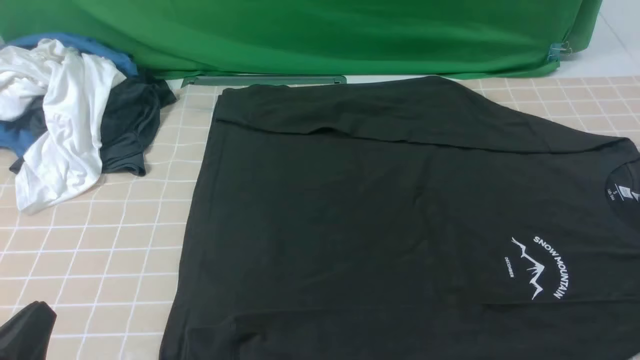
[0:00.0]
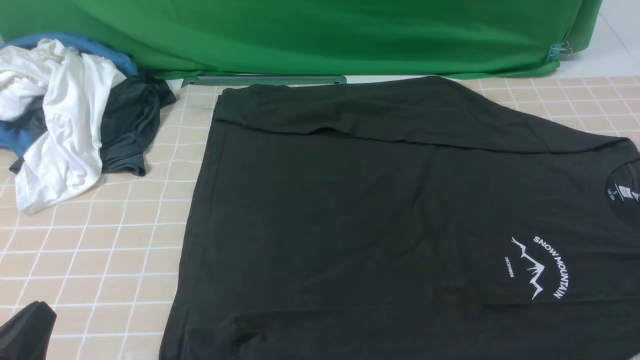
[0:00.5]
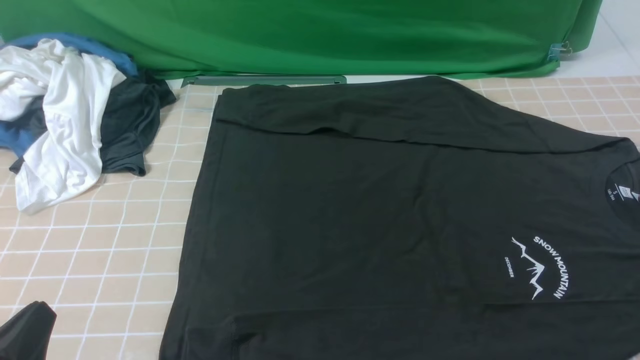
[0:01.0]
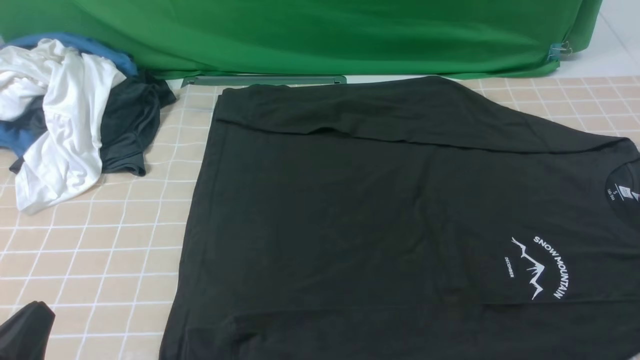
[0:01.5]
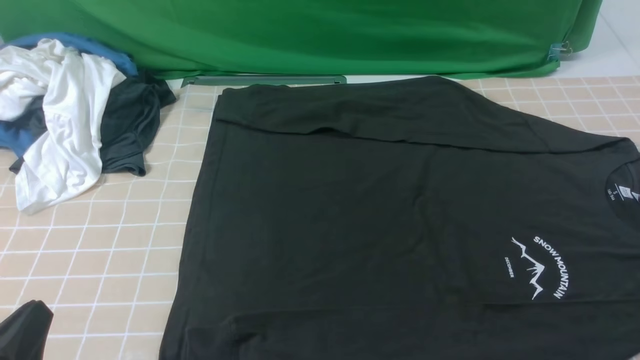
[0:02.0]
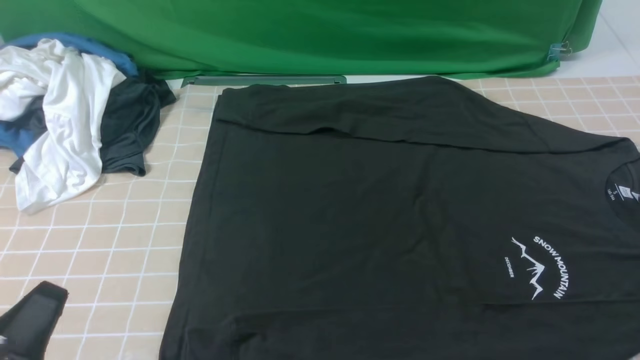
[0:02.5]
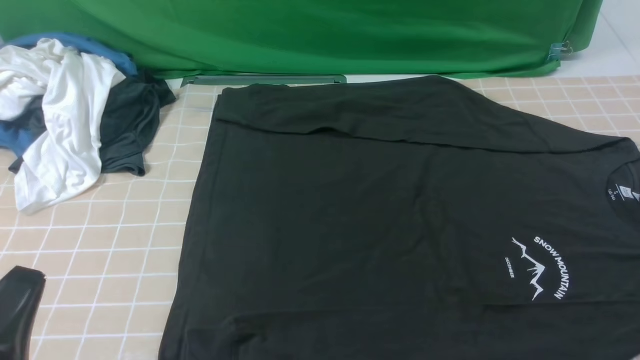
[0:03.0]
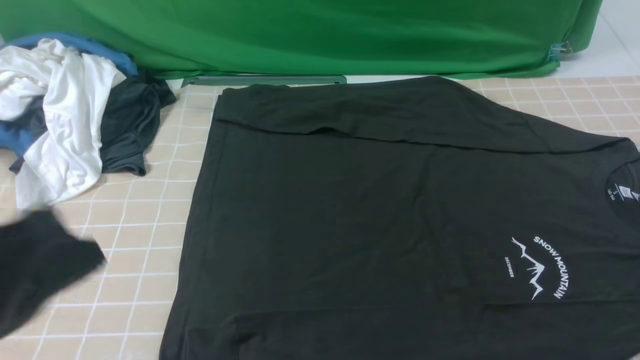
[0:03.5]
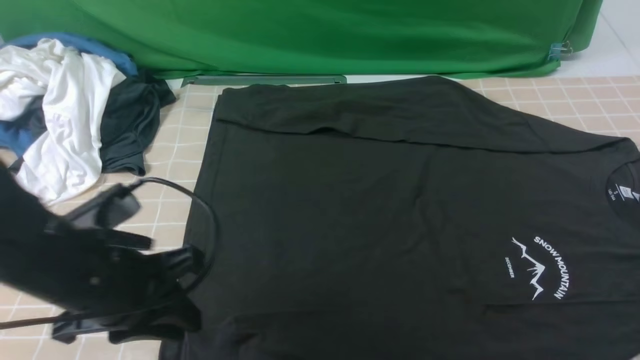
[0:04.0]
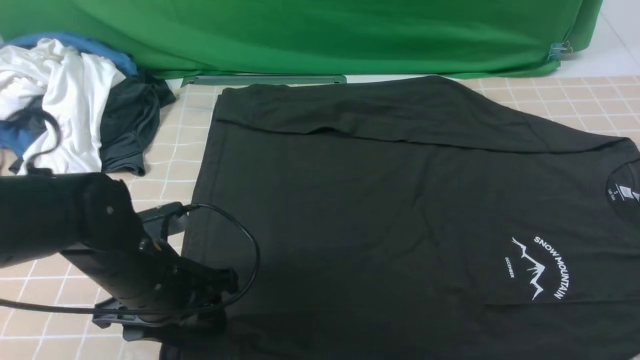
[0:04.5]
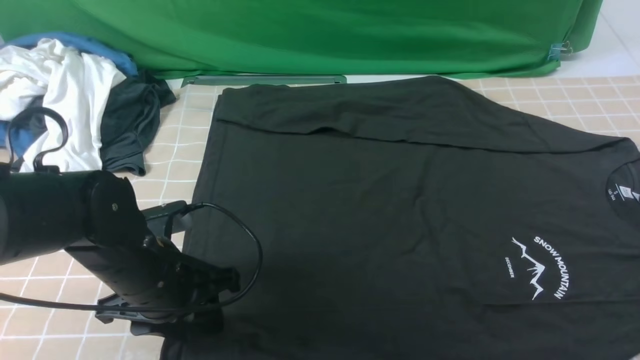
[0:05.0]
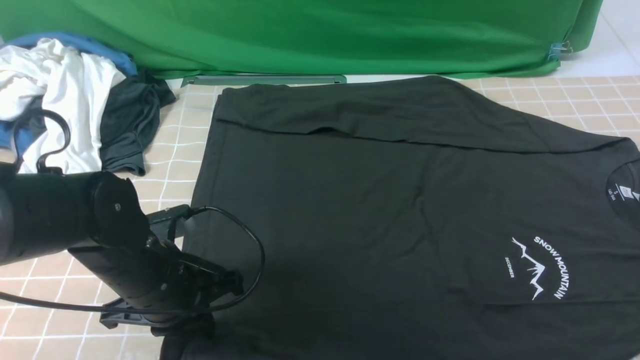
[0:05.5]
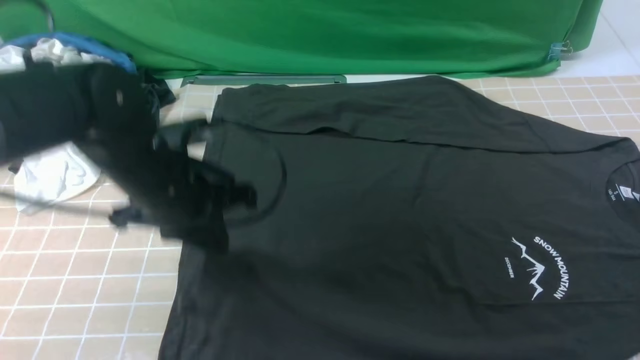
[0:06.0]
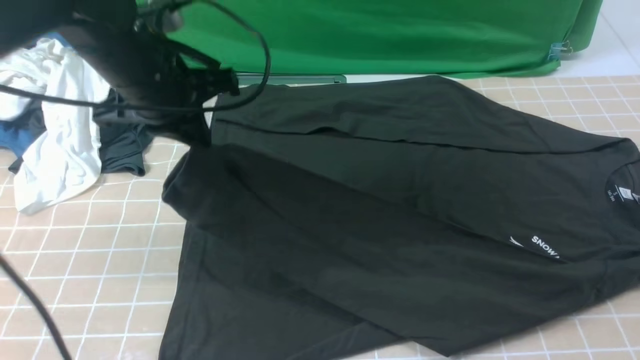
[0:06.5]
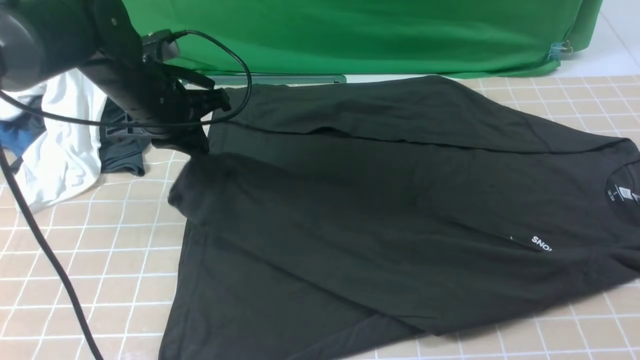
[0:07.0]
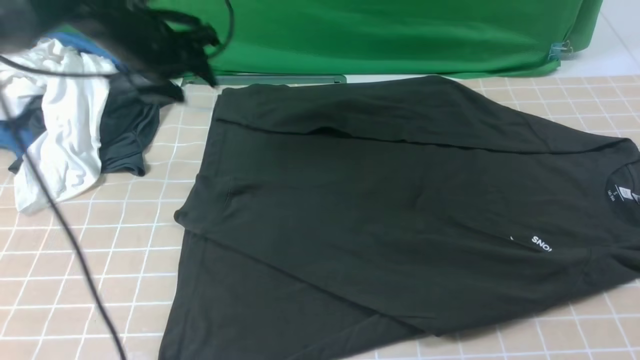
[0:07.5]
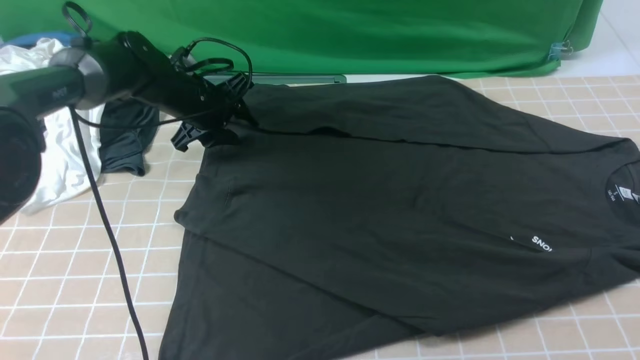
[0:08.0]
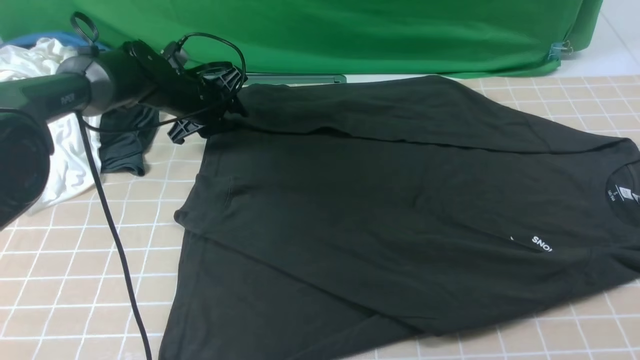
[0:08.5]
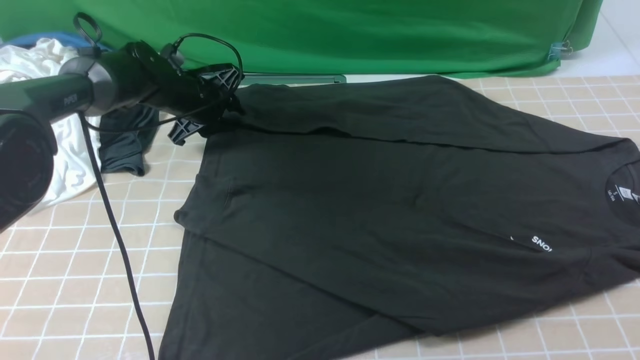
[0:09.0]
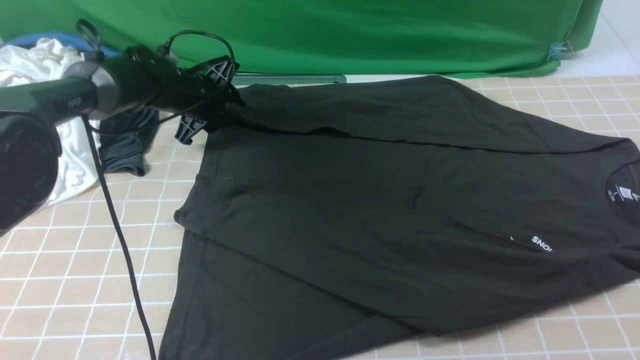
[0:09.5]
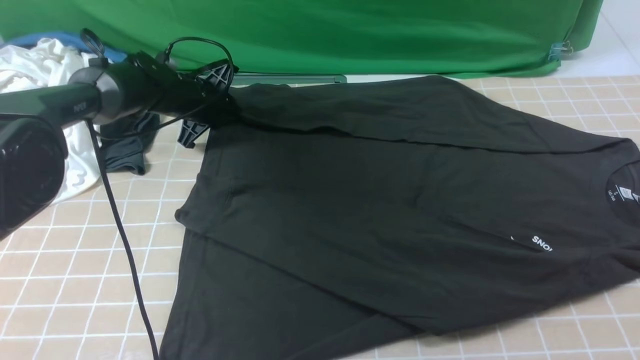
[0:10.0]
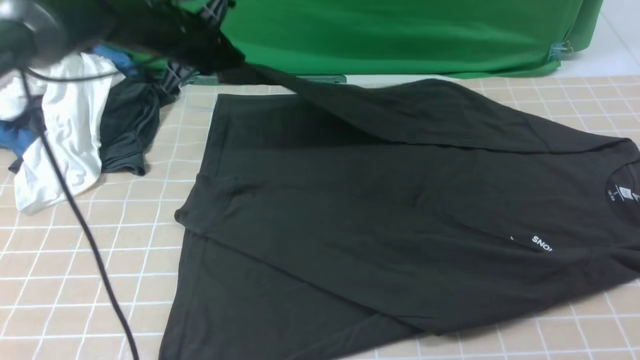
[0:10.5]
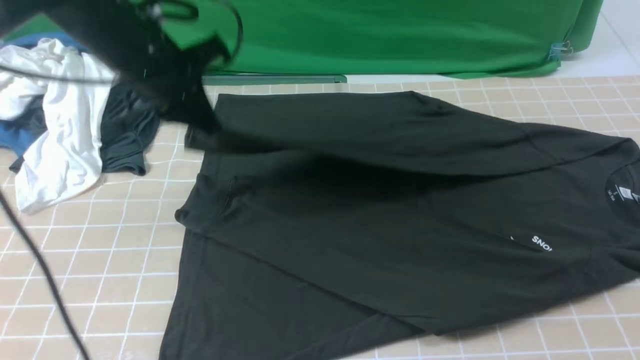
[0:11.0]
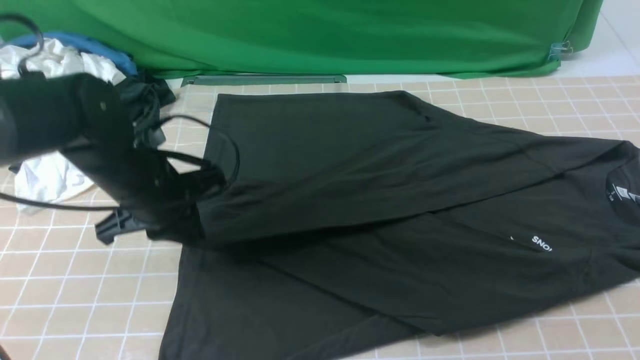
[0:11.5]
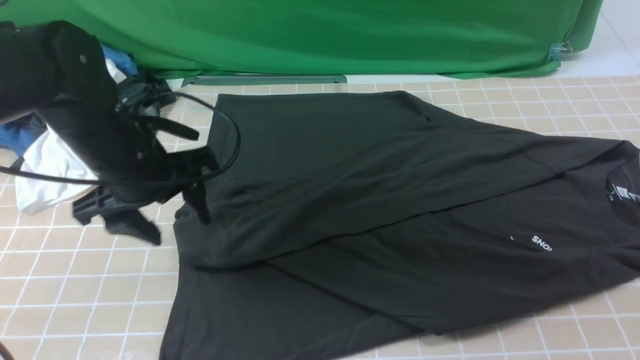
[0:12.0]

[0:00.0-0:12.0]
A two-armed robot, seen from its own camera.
Step, 0:00.0 to 0:05.5: use the left arm to clamp the cuff closest to it.
Step, 0:06.0 to 0:07.0: use the left arm to drag and place the cuff at the centered position on the left edge of the fabric.
Step, 0:07.5 to 0:10.0: use the left arm to clamp the cuff farthest from it.
Step, 0:10.5 to 0:11.5: use the left arm to drag and drop the cuff onto the cuff closest to the left arm.
0:00.0 to 0:02.0: Both grippers stay about where they are.
0:02.0 to 0:04.0: The left gripper heads forward and to the right, covering approximately 15 cm.
0:04.0 to 0:06.0: The left gripper goes roughly 10 cm forward, and opens and closes again.
0:06.0 to 0:08.0: The left gripper goes approximately 20 cm forward and downward, and opens its fingers.
0:08.0 to 0:10.0: The left gripper closes.
0:10.0 to 0:12.0: The left gripper moves backward, some 20 cm, and opens its fingers.

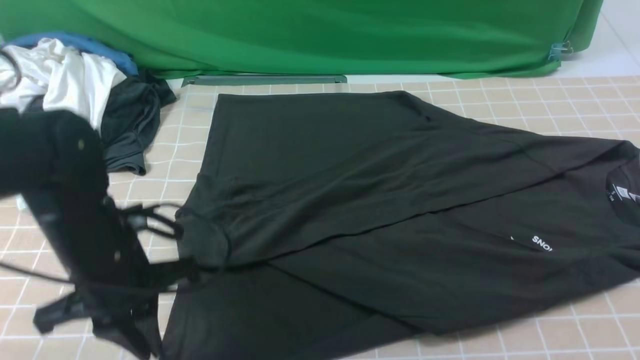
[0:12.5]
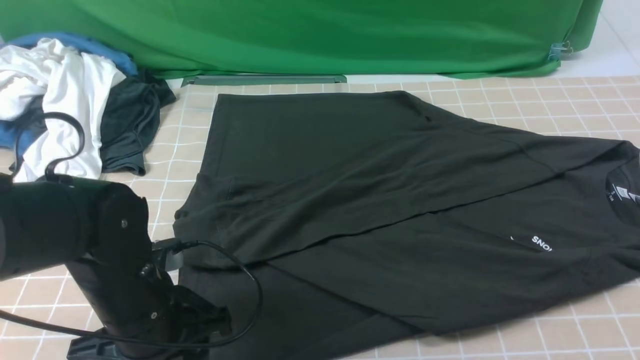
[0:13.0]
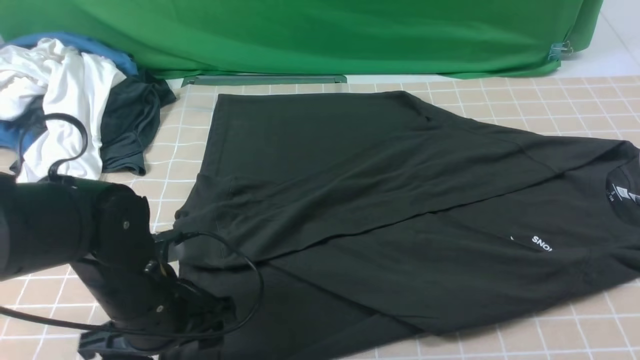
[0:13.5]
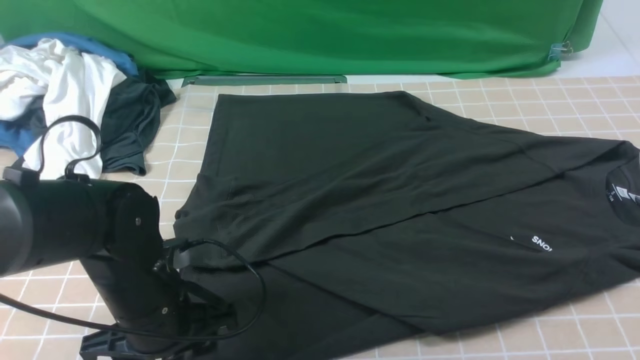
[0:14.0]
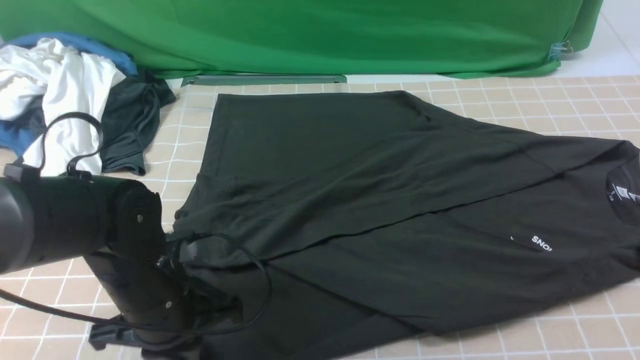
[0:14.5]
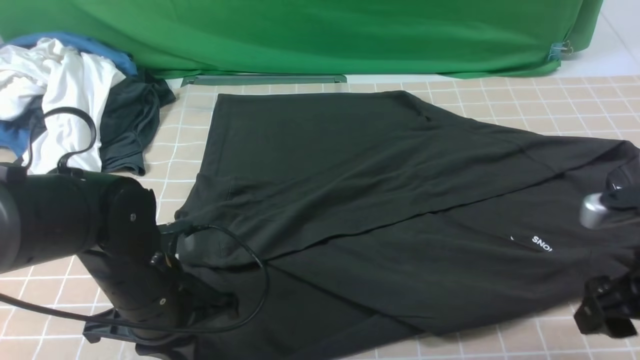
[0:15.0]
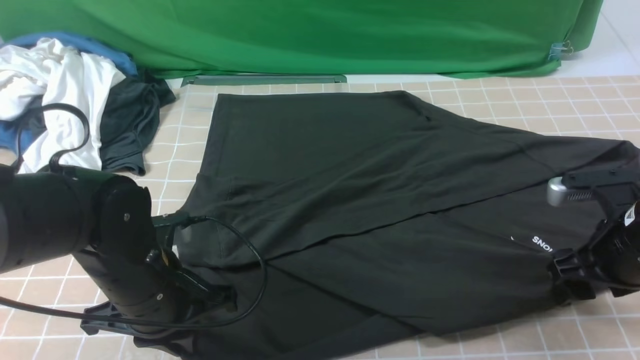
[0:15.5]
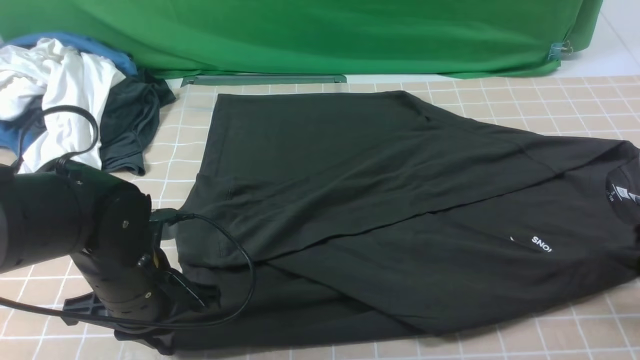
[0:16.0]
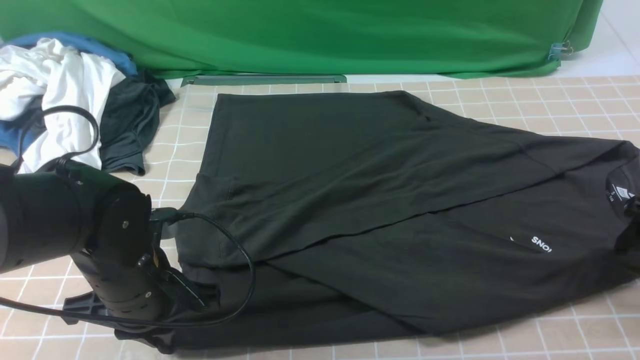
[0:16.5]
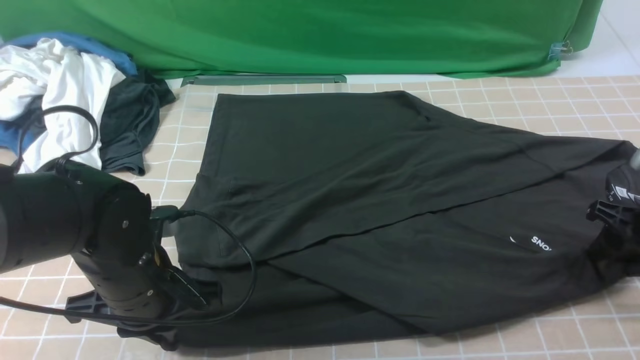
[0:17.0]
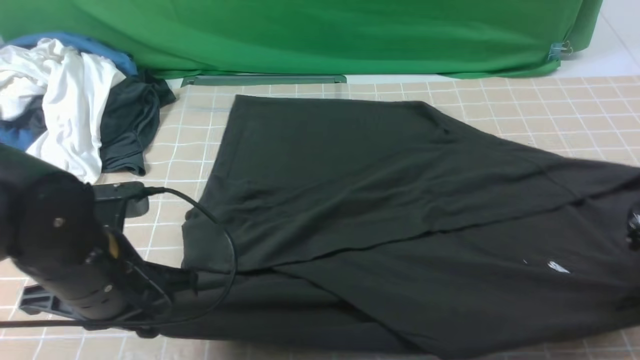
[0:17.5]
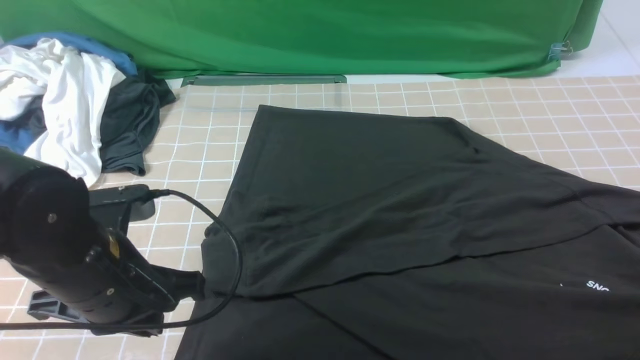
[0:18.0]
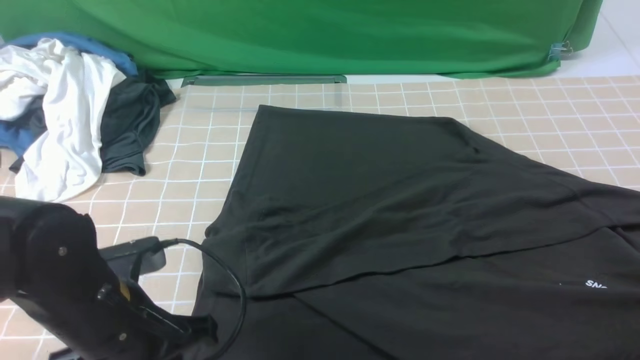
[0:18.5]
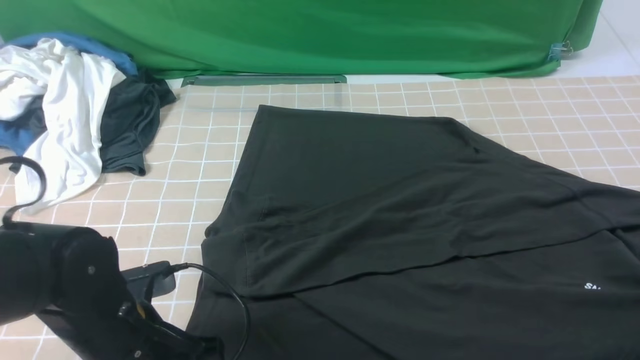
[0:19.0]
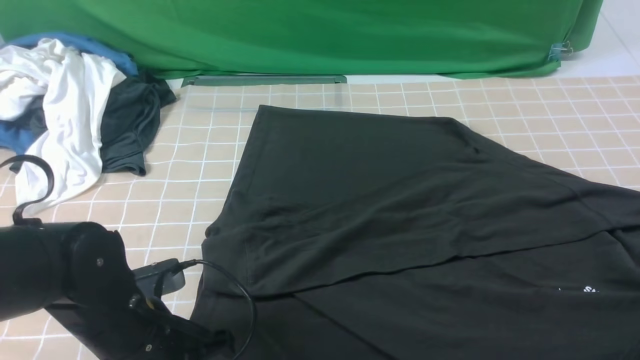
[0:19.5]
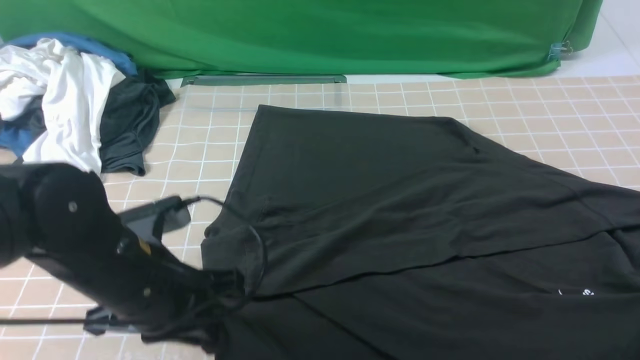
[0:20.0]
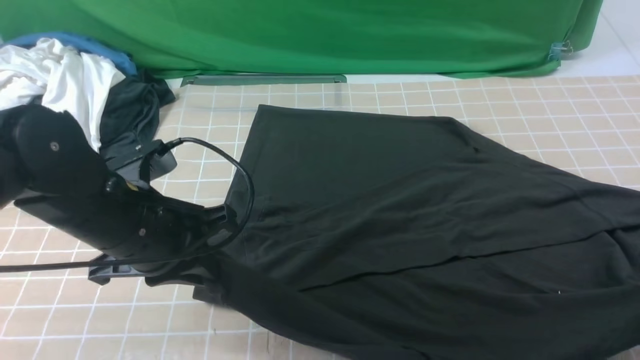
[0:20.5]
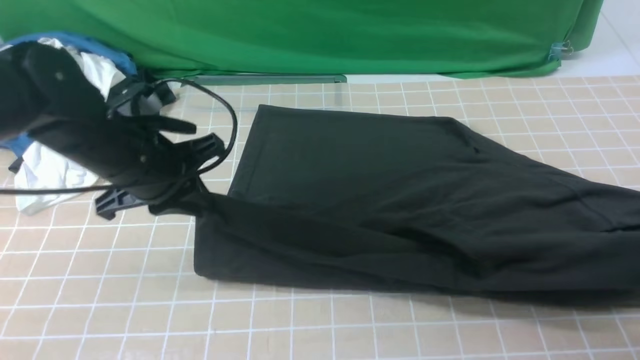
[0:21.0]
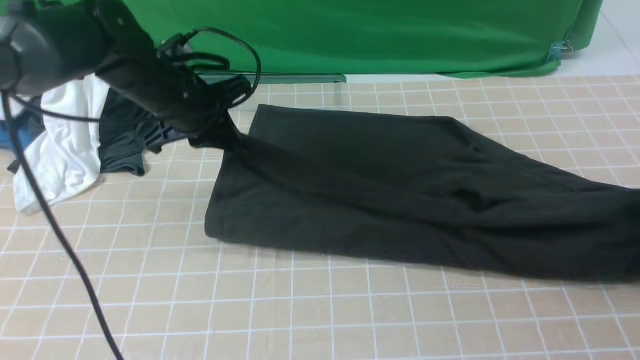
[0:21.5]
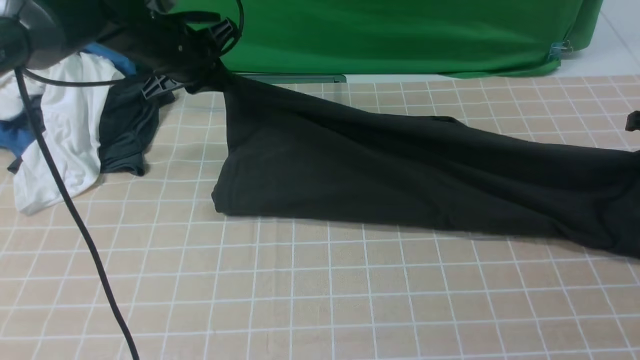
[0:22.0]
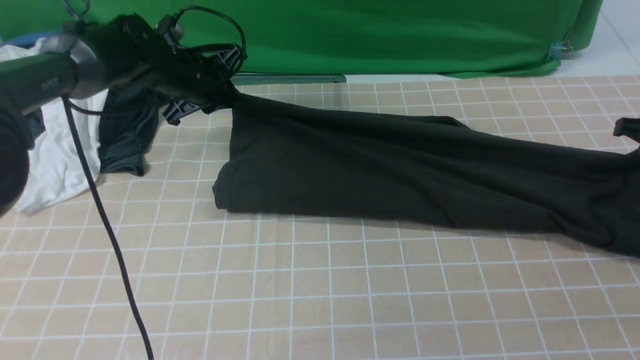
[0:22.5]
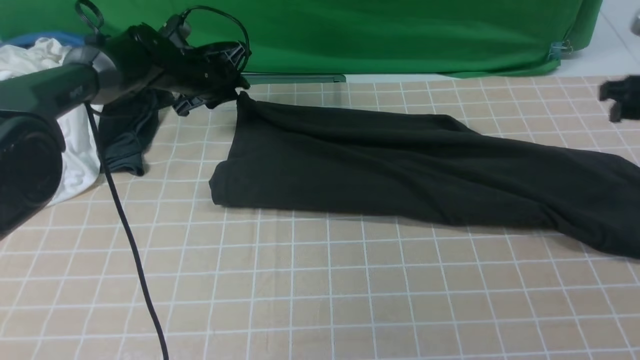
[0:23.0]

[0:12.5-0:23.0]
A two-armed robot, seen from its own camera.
Step, 0:12.5 to 0:19.5: use both arms simultaneously to clamp the lower edge of the clothing fabric.
0:12.5 to 0:14.5: The left gripper moves about 5 cm, and opens, then closes again.
0:14.5 to 0:16.5: The right gripper is displaced downward, forward and to the right by about 20 cm, and opens.
0:16.5 to 0:19.0: The right gripper is displaced backward and upward by about 10 cm, and closes its fingers. The left gripper travels backward by about 5 cm, and opens.
0:19.0 to 0:21.0: The left gripper goes about 15 cm forward and upward, and closes up.
0:21.0 to 0:23.0: Both grippers move forward, about 20 cm. The right gripper opens its fingers, while the left gripper opens its fingers.
